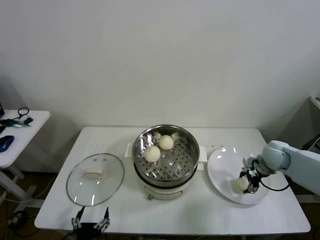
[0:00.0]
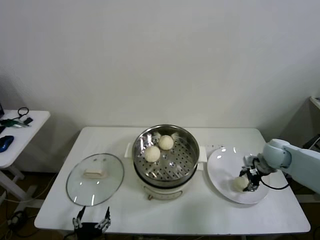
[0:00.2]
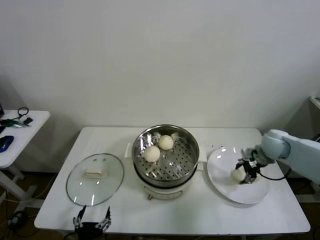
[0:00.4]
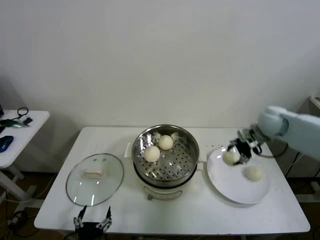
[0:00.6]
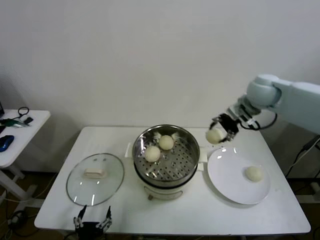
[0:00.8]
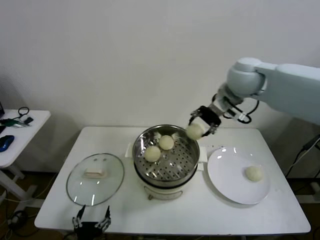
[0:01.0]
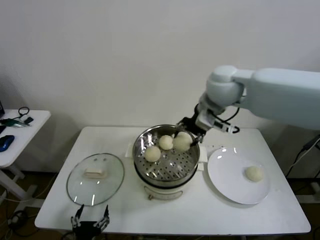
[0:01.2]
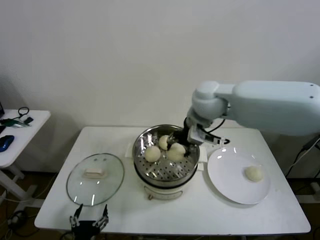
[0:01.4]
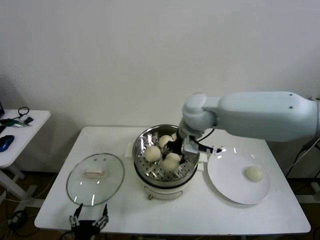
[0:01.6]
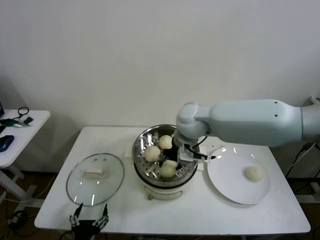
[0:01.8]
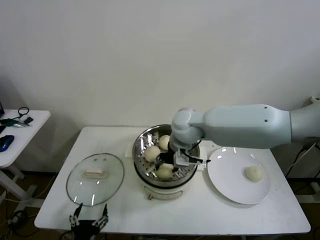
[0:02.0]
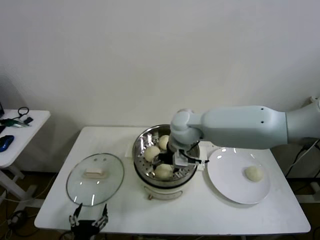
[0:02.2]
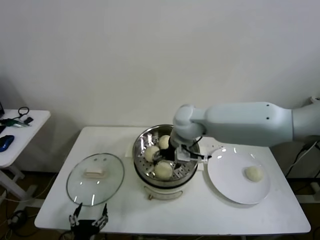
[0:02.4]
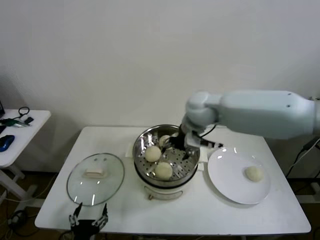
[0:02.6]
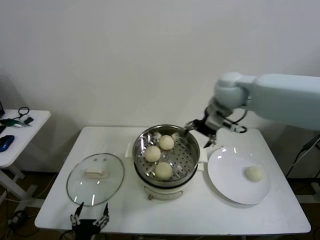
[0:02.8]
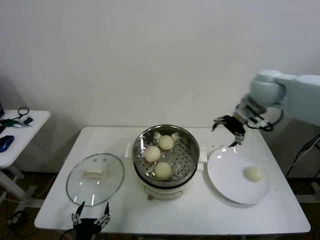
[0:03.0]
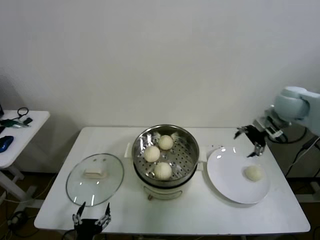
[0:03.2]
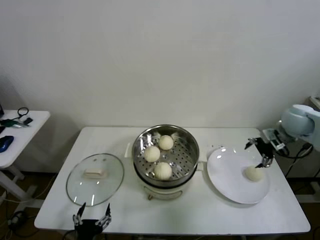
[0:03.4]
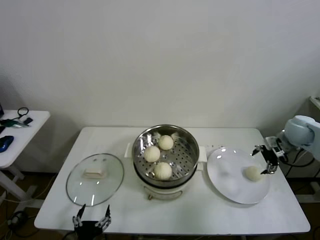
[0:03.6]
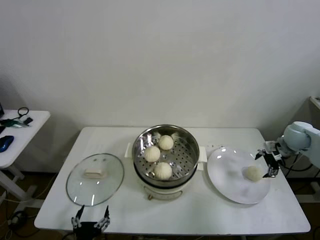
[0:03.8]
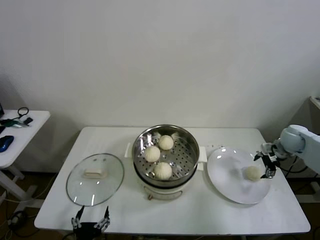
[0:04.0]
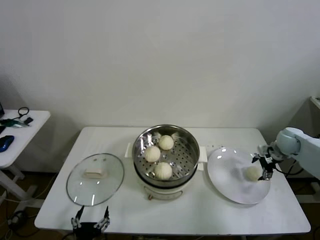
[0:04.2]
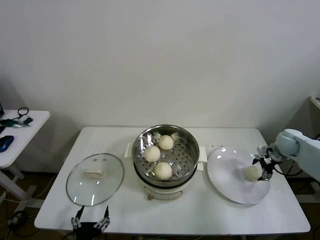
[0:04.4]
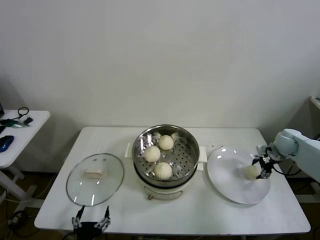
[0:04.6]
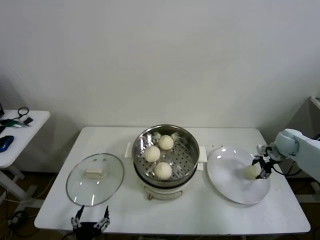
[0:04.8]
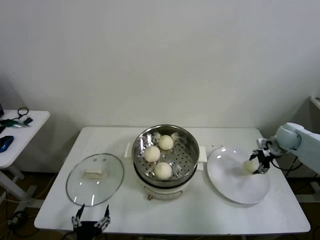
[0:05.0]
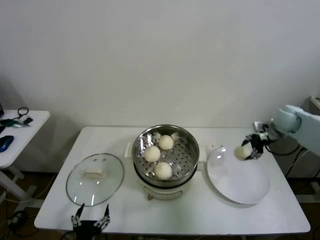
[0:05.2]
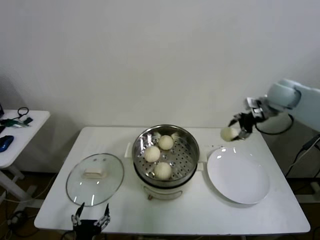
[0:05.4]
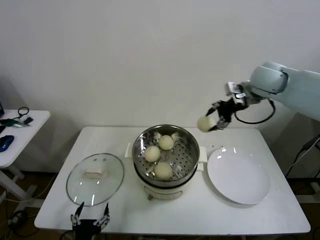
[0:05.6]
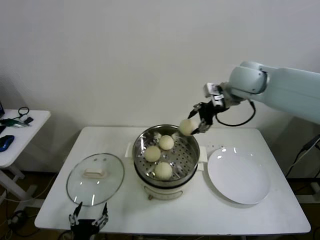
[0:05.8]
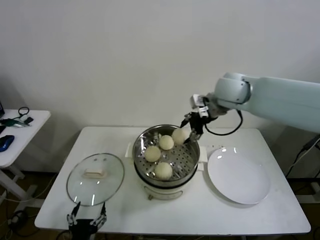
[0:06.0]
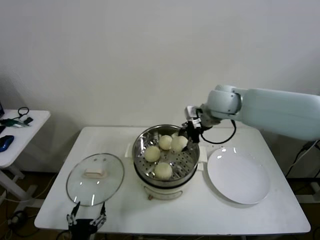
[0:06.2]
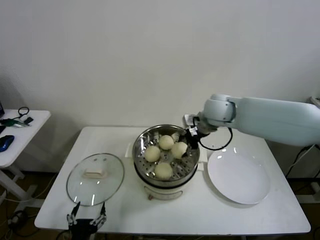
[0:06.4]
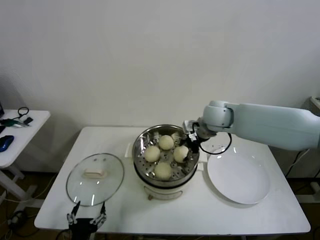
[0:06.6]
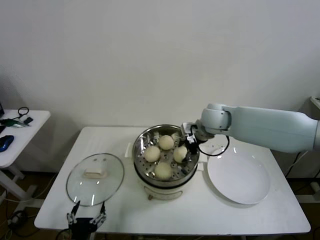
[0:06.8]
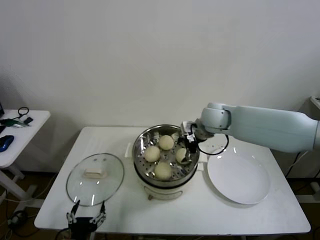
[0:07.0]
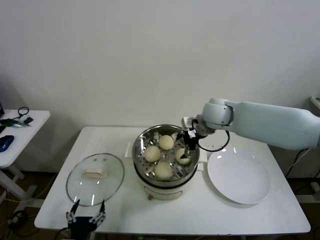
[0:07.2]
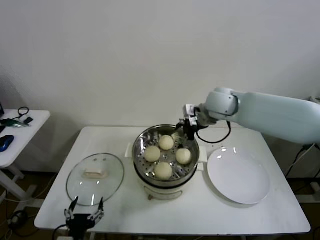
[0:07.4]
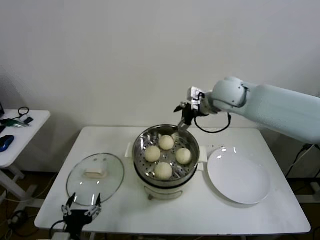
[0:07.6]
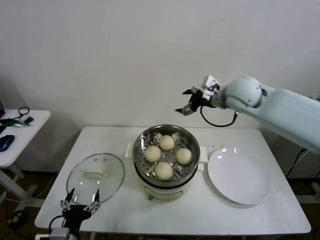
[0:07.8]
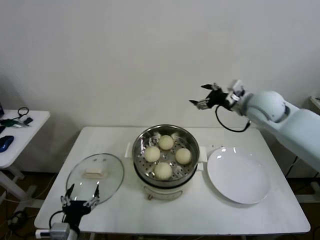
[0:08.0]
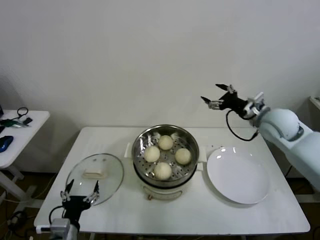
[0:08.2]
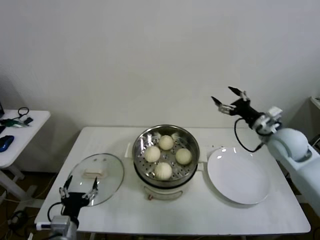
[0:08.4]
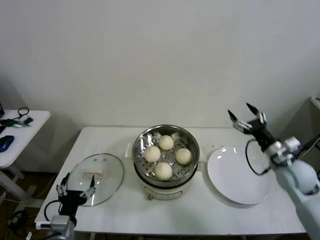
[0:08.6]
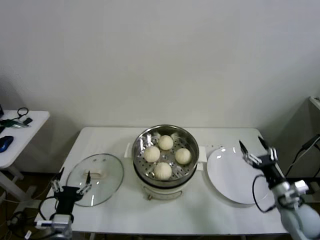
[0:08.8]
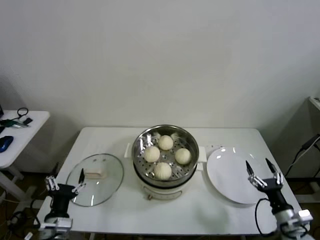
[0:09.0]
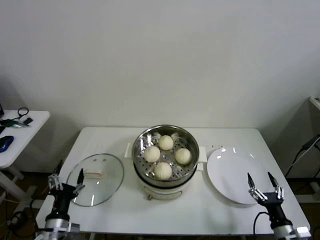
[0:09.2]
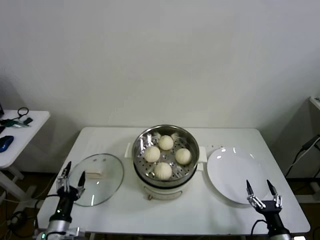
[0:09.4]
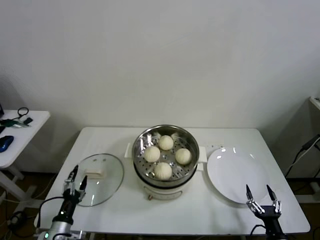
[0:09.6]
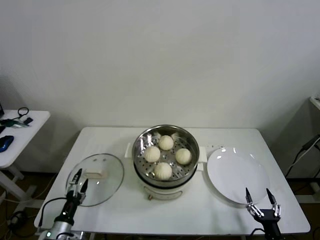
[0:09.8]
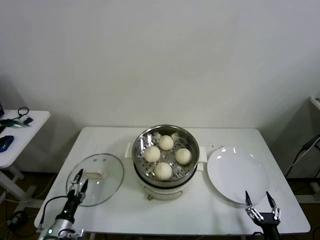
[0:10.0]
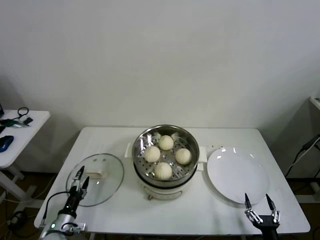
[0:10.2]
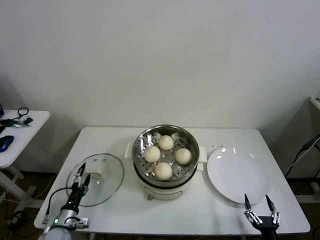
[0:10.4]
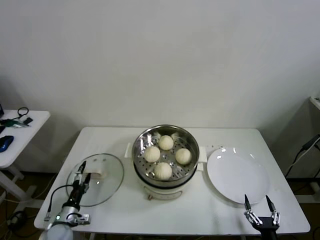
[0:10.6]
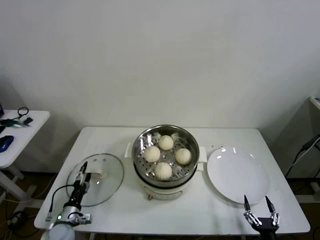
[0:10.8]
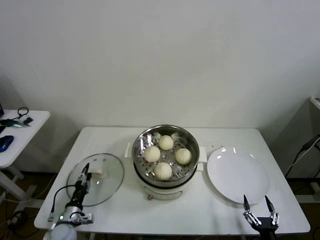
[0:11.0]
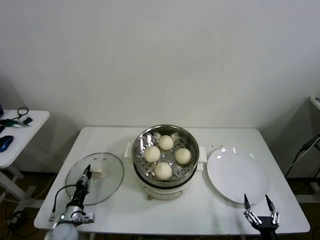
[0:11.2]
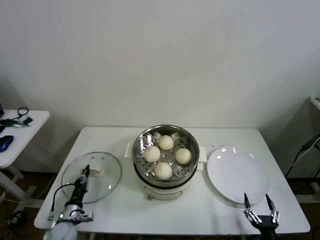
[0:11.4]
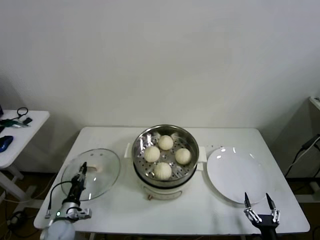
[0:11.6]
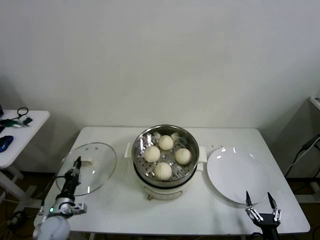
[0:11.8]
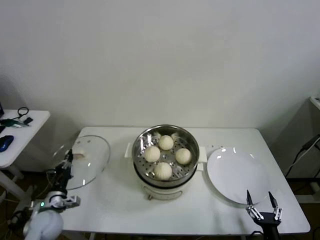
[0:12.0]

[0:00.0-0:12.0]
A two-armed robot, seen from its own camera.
Task of the whole recording: take steamed baozi put them in steamer then cover it.
Step, 0:00.2 to 0:02.4: Place the baozi on the steamer with right gripper.
Step, 0:02.6 to 0:04.8: Grasp the baozi in the plate with right gripper.
Step, 0:05.0 to 0:07.0: Place the baozi on the steamer with right gripper.
Step, 0:07.2 to 0:11.4: Grasp the pot lid with left gripper.
0:00.0 to 0:01.6: The right gripper travels to the left and upward by approximately 35 cm.
0:01.6 to 0:03.0: The right gripper shifts approximately 20 cm to the right, and opens its fingers.
0:03.0 to 0:04.4: The right gripper travels downward and to the right by about 30 cm.
0:04.4 to 0:06.0: The right gripper is displaced to the left and upward by roughly 35 cm, and closes up.
0:06.0 to 0:07.6: The right gripper reaches about 10 cm downward, then returns, and opens its fingers.
0:07.6 to 0:09.0: The right gripper moves downward, backward and to the right, about 50 cm, while the left gripper shifts roughly 5 cm forward.
0:09.0 to 0:10.4: The left gripper moves downward, to the left and forward, roughly 15 cm; the right gripper goes roughly 15 cm backward, downward and to the left.
0:10.4 to 0:12.0: The left gripper travels upward by about 5 cm, and closes up.

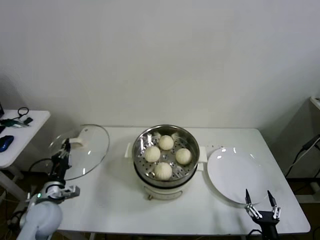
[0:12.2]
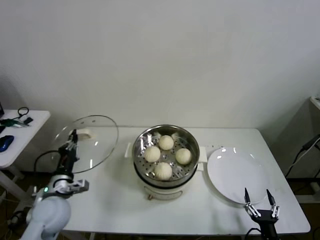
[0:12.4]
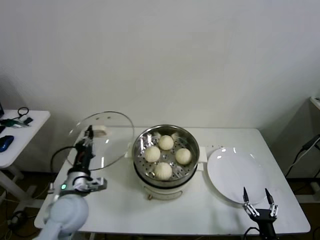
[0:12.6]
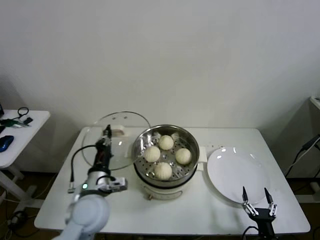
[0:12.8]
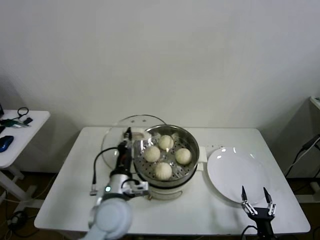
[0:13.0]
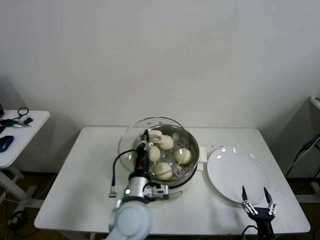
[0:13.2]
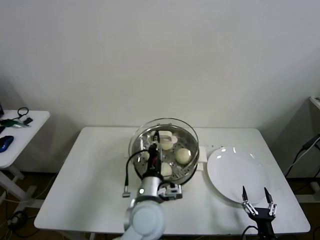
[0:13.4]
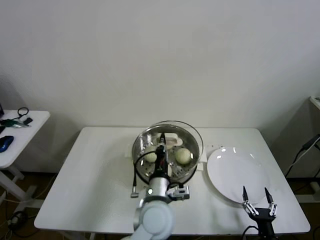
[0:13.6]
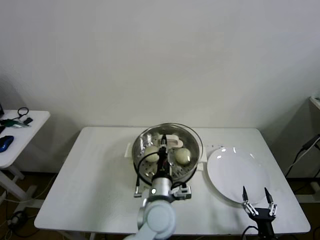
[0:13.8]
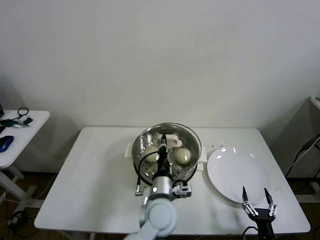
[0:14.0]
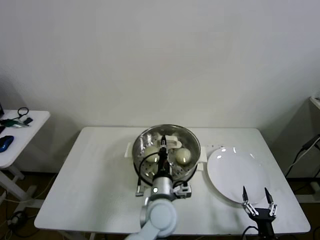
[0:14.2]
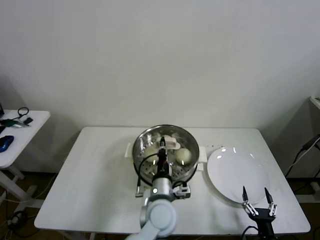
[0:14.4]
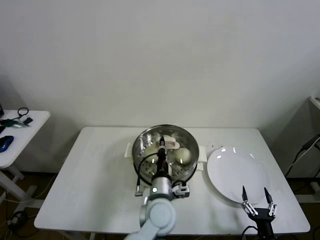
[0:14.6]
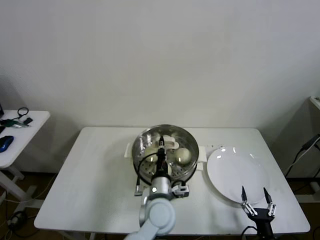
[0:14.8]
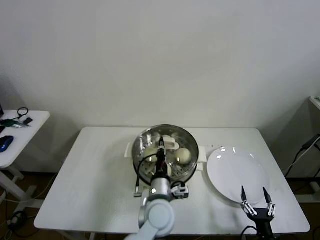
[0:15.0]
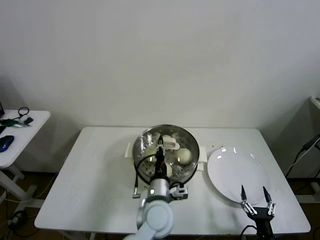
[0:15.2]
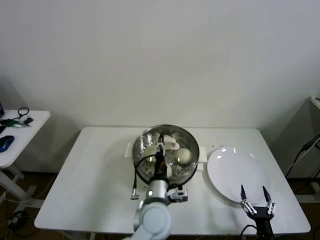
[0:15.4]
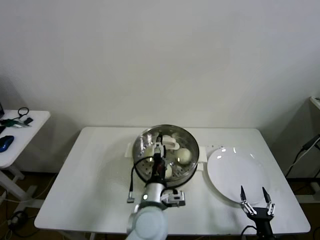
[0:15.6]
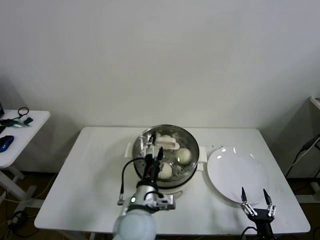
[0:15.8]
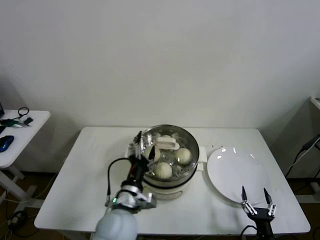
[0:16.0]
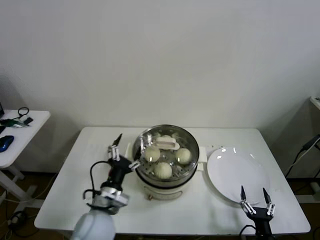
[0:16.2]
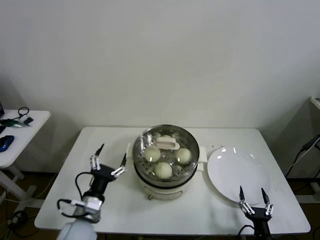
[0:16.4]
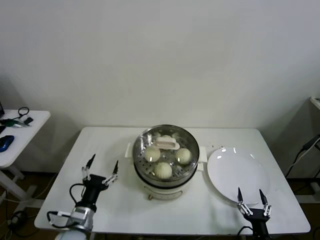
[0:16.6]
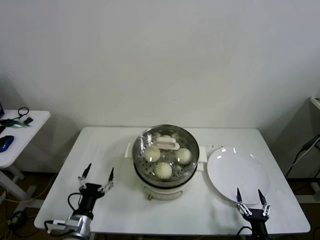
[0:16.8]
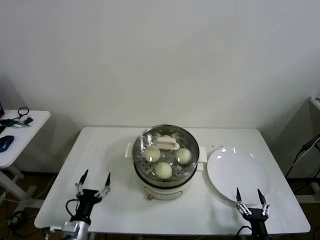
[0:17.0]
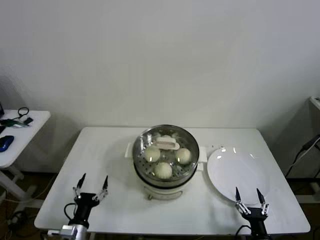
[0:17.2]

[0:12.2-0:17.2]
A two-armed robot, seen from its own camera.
Task of the whole recording: take steamed baozi put them in steamer then cover it.
Step, 0:12.2 to 0:15.6: Place the pot lid on the steamer with left gripper.
0:12.2 to 0:13.8: The left gripper heads to the right, covering roughly 35 cm.
0:13.8 to 0:15.6: The left gripper opens its fingers.
0:15.6 to 0:17.2: The left gripper is displaced to the left and downward by approximately 30 cm.

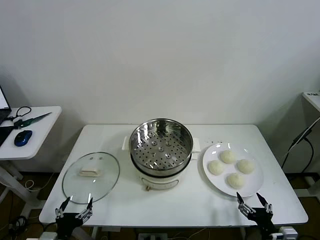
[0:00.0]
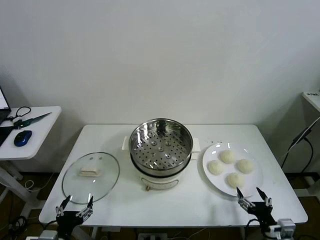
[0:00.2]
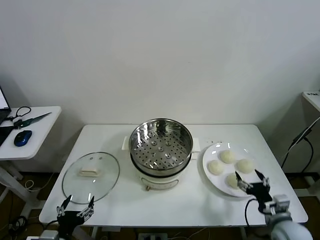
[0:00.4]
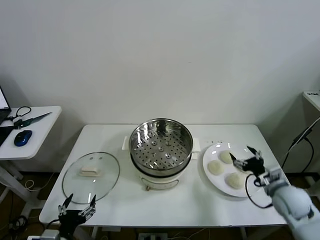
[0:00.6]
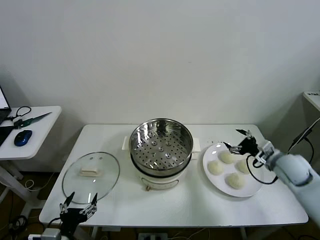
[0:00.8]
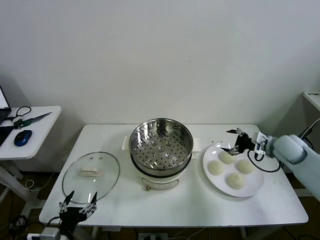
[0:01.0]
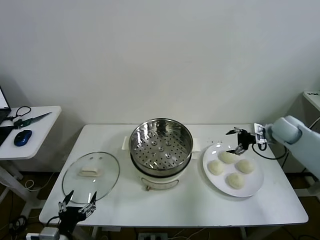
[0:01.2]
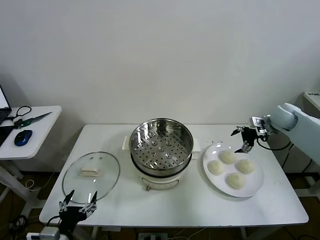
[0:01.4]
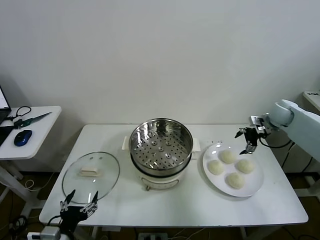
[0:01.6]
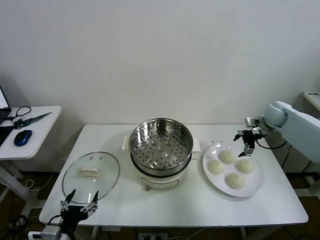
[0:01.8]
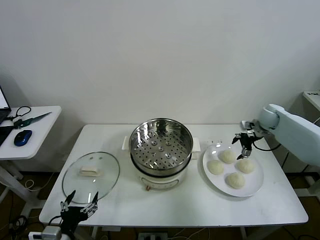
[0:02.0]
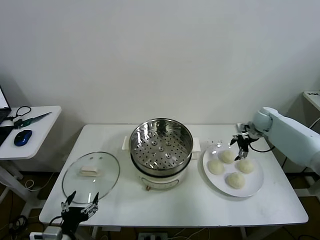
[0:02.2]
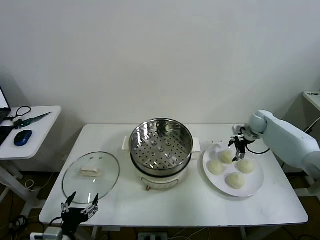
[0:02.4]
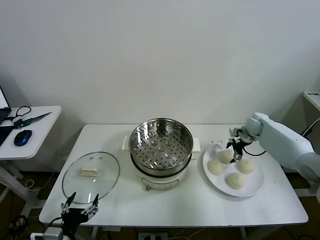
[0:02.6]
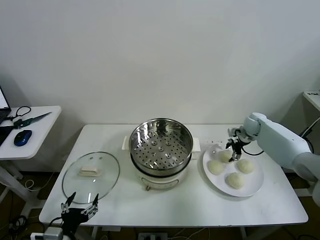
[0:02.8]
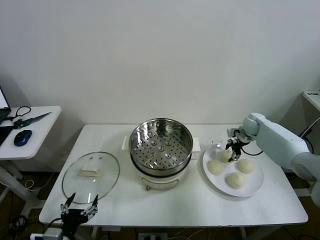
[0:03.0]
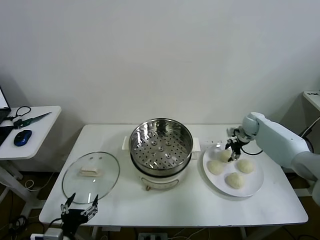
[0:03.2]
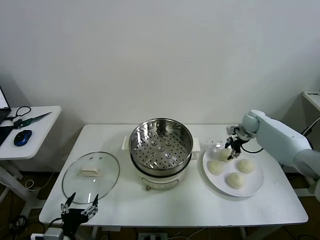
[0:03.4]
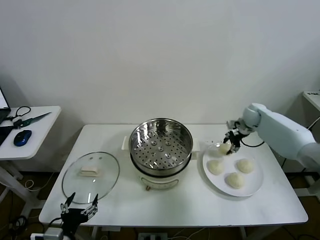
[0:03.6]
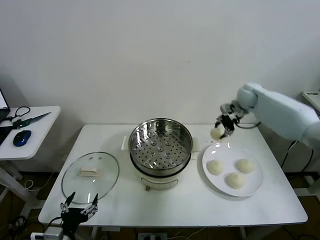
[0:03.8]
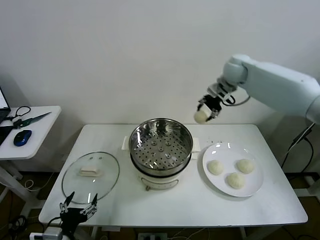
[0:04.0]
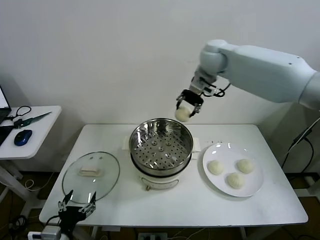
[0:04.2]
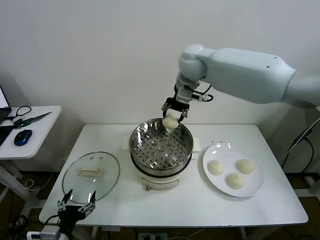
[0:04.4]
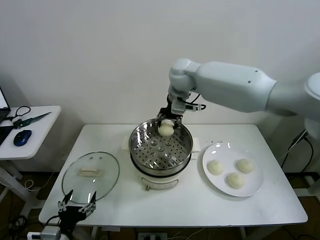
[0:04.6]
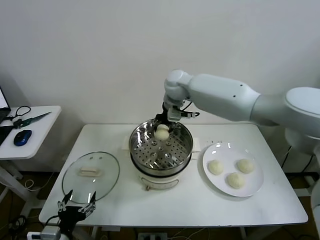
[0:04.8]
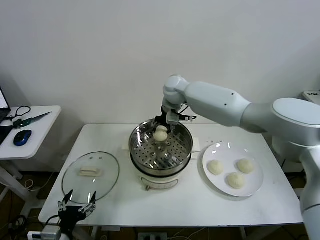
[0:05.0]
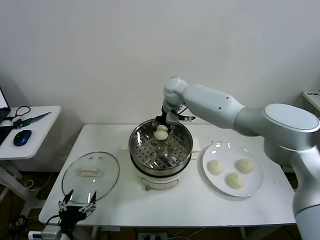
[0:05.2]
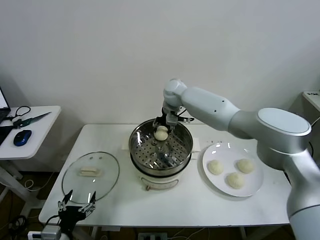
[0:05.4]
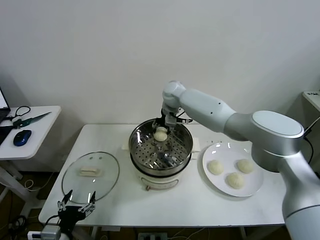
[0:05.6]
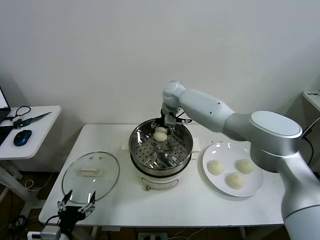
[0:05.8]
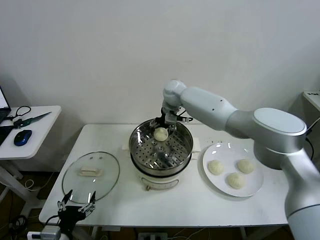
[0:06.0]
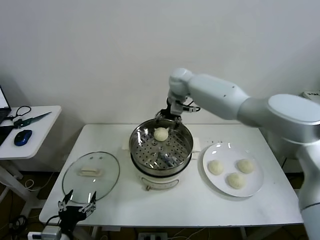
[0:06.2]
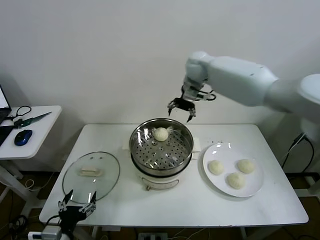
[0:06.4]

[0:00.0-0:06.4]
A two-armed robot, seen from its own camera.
Task of the whole recording: take steamed baozi put them in steamer then cover it.
Step, 0:00.0 to 0:03.0: Grasp the baozi in the plate with right gripper.
Step, 0:03.2 to 0:06.2: Place the baozi on the steamer with right gripper.
0:01.6 to 0:03.2: The right gripper moves downward and to the left, some 10 cm, and closes its fingers.
0:03.2 to 0:04.8: The right gripper goes about 40 cm to the left and upward.
0:04.8 to 0:06.4: The right gripper heads to the right and upward, covering roughly 15 cm, and opens up.
